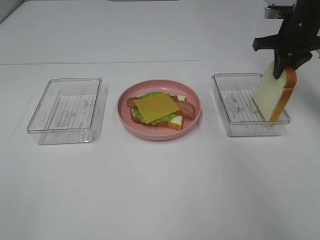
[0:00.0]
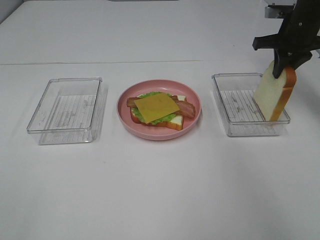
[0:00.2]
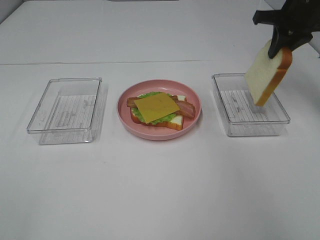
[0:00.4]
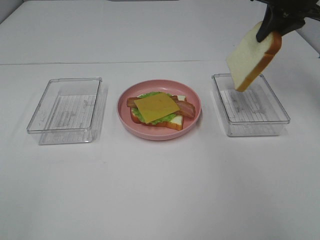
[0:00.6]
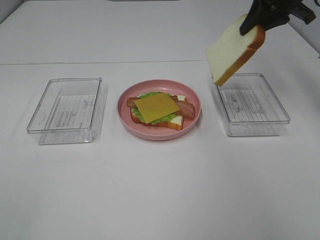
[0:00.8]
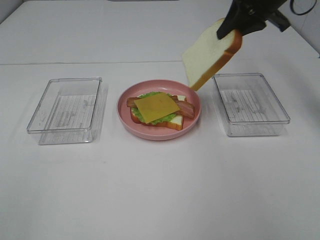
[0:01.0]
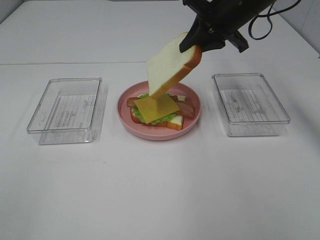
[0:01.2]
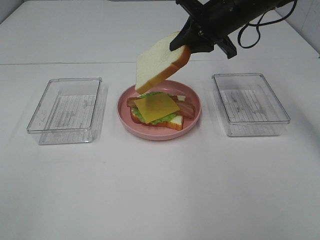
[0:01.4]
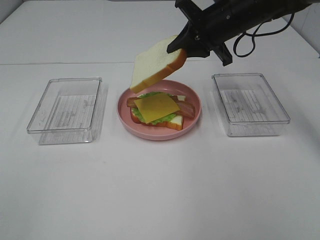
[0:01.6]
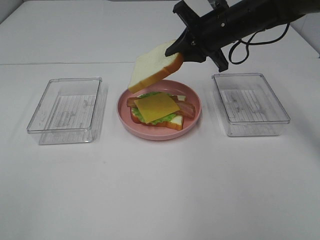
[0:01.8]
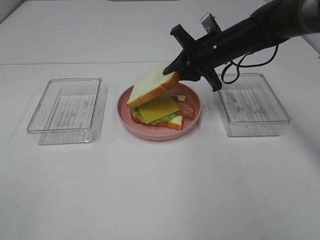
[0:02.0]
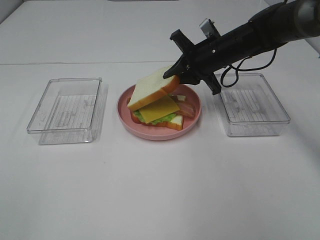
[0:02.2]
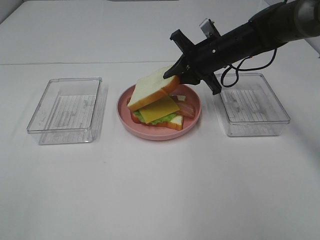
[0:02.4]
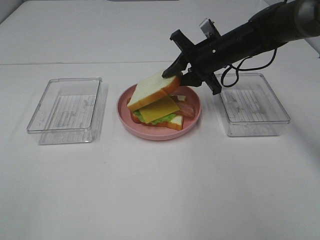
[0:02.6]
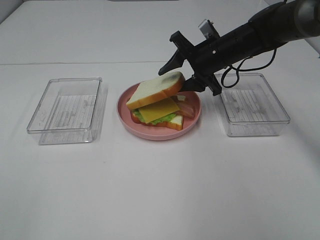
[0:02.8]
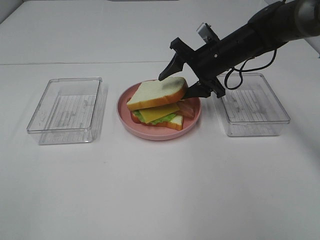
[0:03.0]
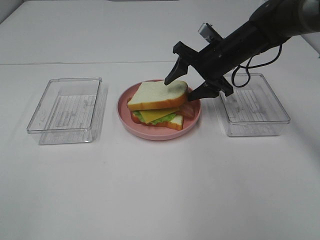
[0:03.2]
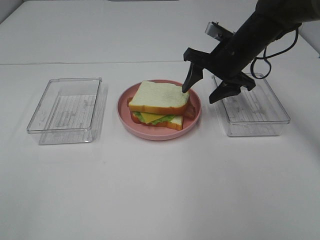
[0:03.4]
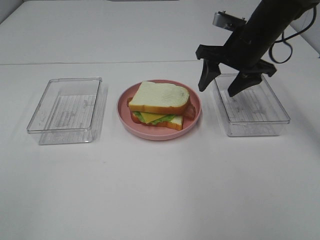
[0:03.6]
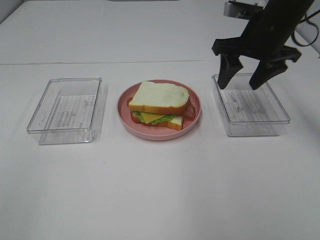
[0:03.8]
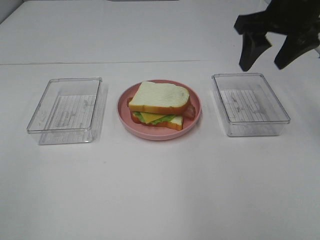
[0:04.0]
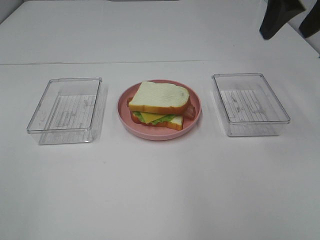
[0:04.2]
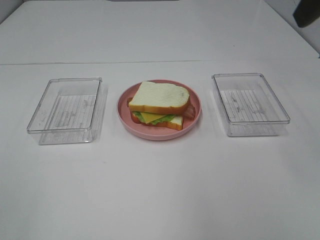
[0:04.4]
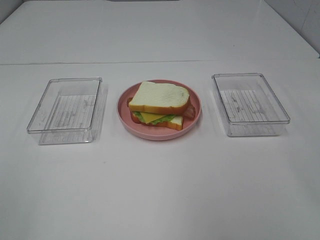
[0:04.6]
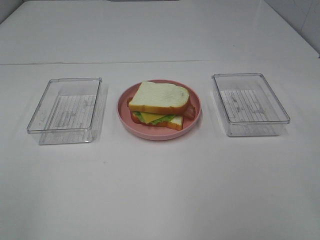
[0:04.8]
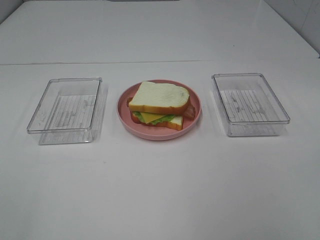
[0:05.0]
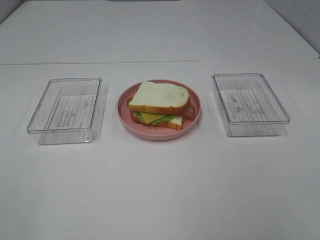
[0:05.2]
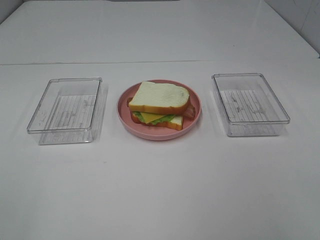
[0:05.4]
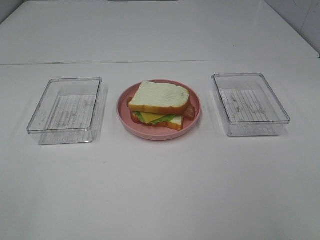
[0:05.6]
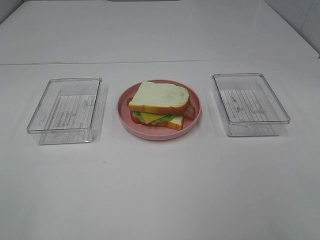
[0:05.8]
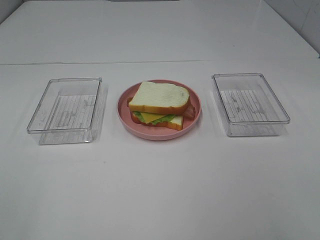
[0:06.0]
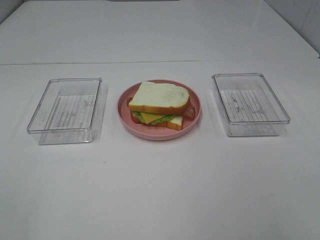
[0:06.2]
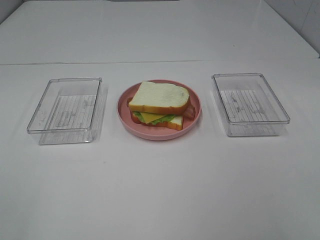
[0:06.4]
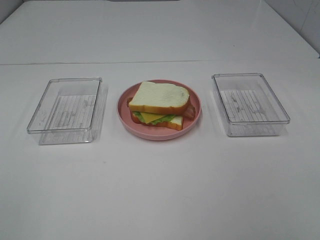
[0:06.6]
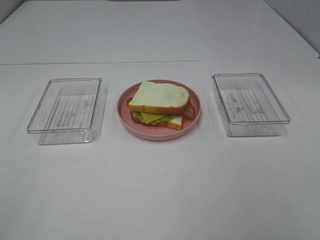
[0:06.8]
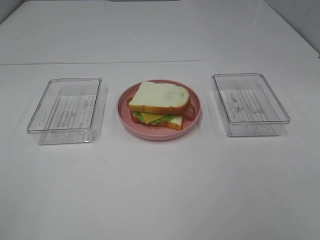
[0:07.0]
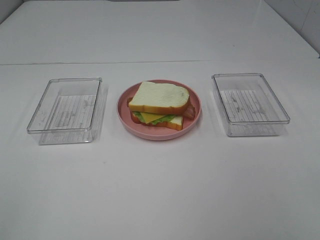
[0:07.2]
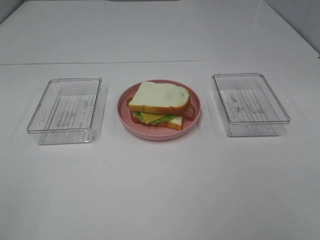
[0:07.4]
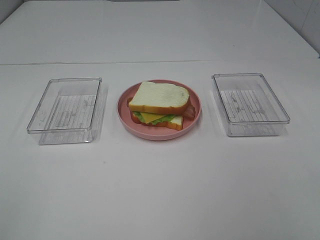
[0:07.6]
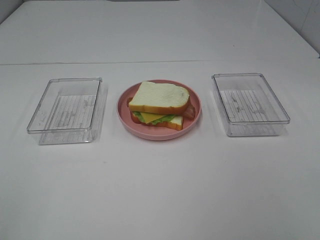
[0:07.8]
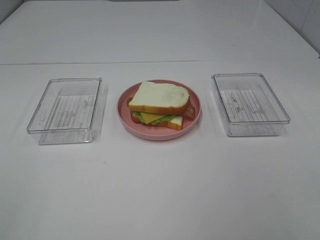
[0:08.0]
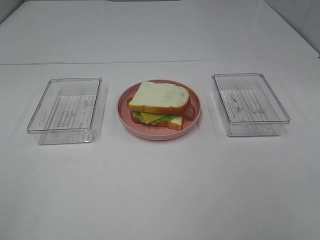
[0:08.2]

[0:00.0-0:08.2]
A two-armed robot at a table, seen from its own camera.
Task of the whole recording: Make sandwiches.
Step, 0:00.2 to 0:03.2: Right hand:place the bread slice on the cheese slice.
0:00.0 to 0:01.6: The right gripper heads to the left, covering approximately 15 cm.
0:01.6 to 0:03.2: The right gripper heads downward, covering about 5 cm, and opens.
0:03.2 to 0:05.0: The right gripper shifts roughly 35 cm backward.

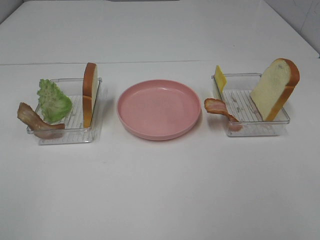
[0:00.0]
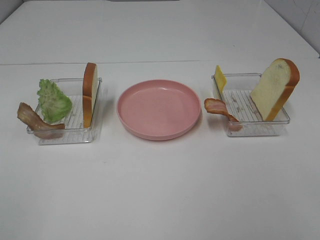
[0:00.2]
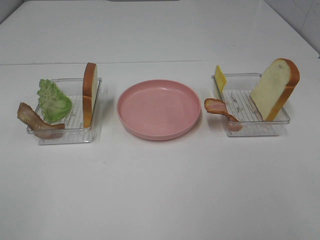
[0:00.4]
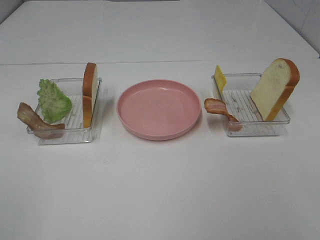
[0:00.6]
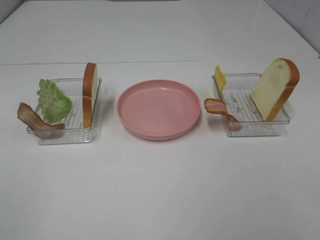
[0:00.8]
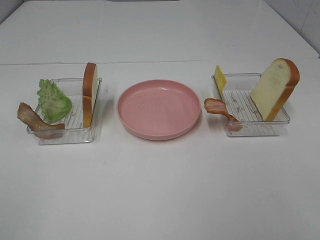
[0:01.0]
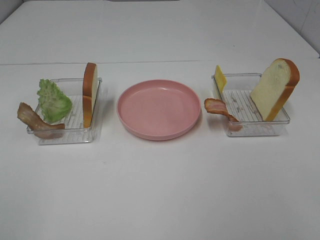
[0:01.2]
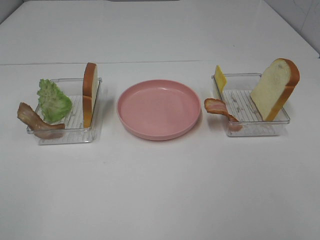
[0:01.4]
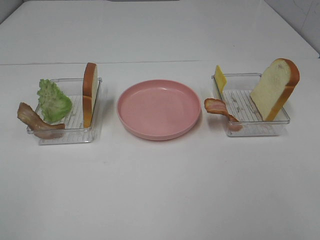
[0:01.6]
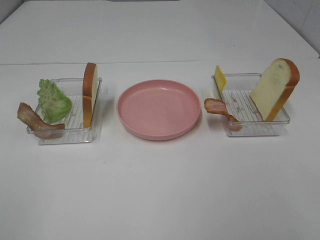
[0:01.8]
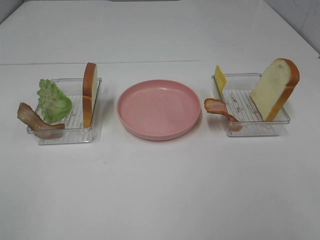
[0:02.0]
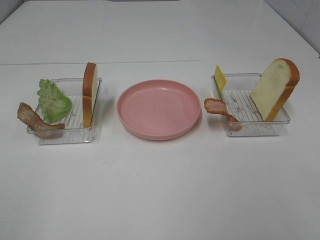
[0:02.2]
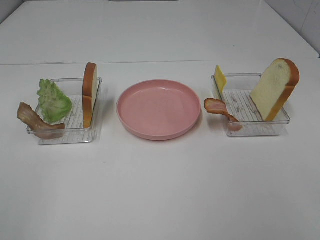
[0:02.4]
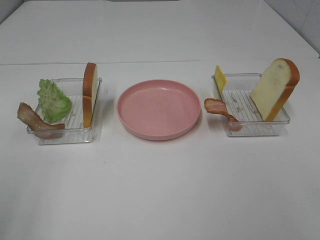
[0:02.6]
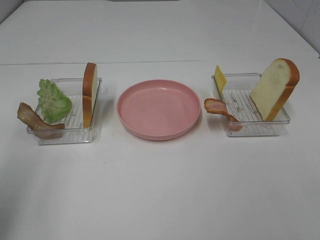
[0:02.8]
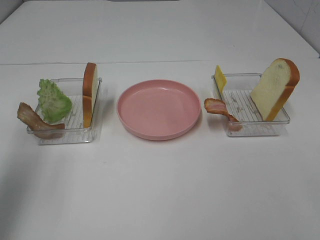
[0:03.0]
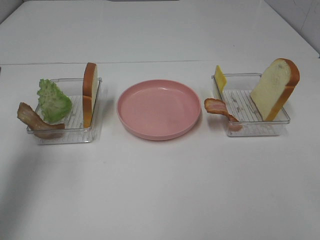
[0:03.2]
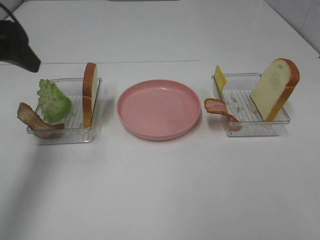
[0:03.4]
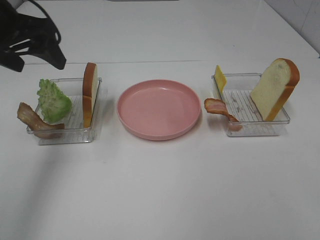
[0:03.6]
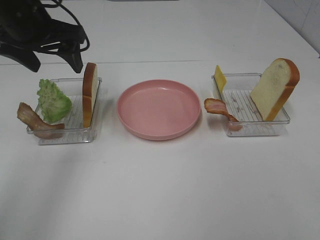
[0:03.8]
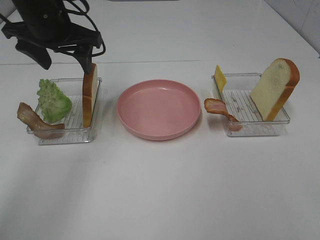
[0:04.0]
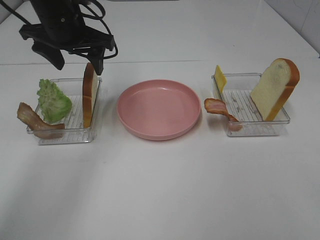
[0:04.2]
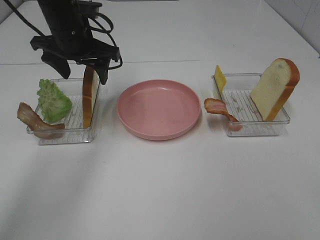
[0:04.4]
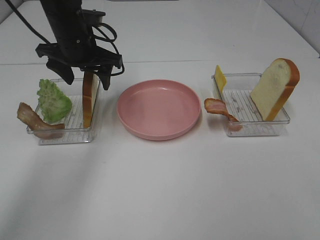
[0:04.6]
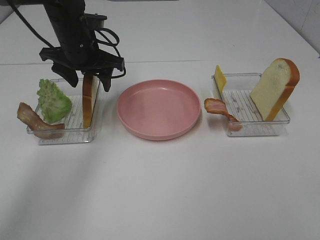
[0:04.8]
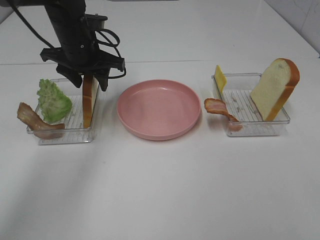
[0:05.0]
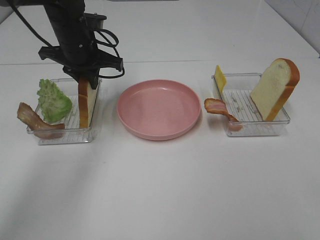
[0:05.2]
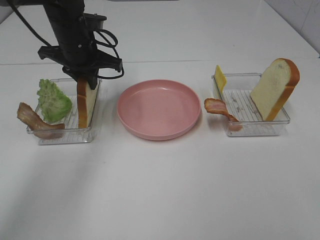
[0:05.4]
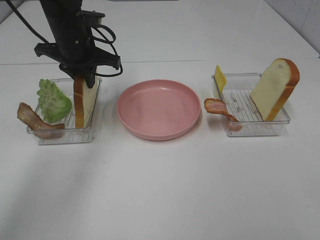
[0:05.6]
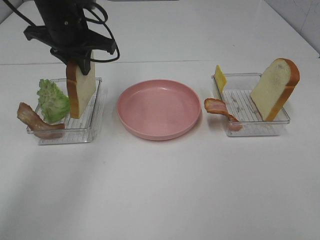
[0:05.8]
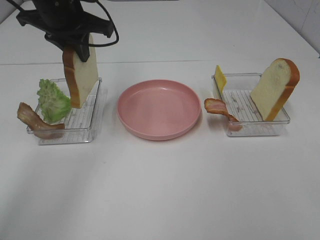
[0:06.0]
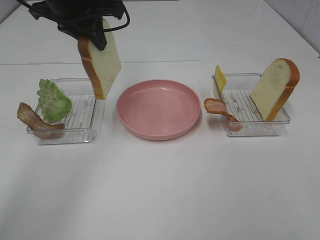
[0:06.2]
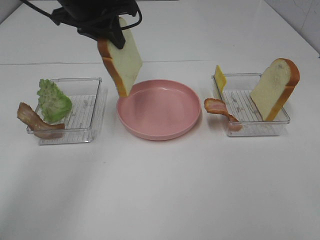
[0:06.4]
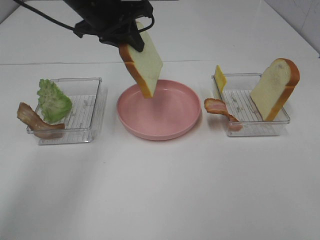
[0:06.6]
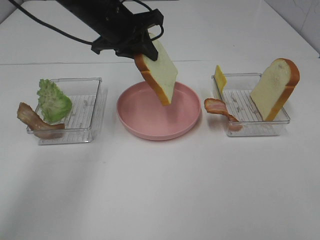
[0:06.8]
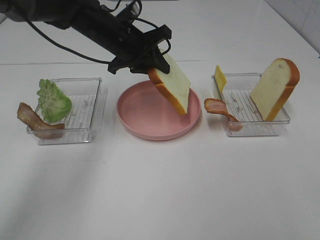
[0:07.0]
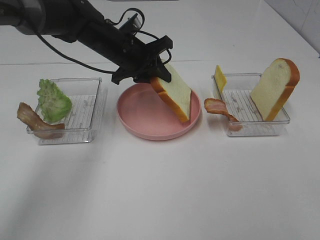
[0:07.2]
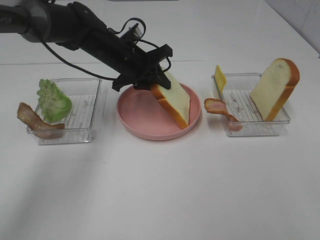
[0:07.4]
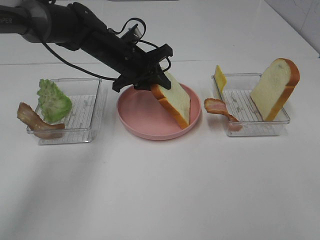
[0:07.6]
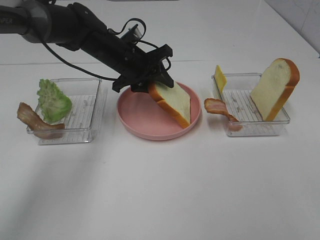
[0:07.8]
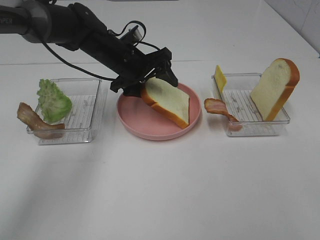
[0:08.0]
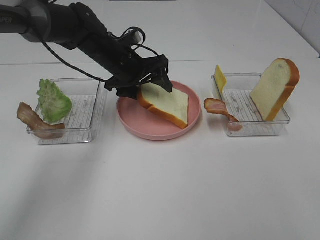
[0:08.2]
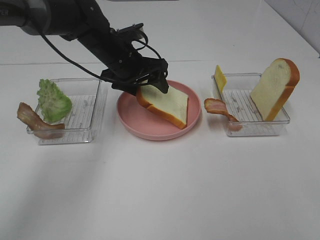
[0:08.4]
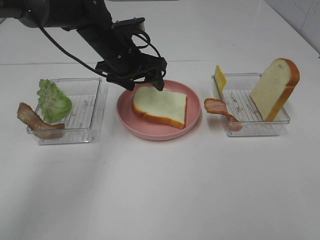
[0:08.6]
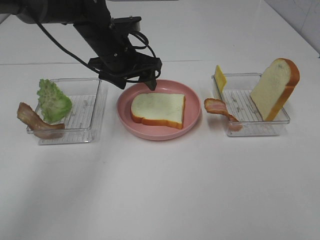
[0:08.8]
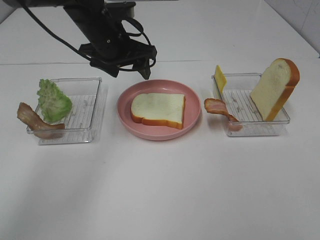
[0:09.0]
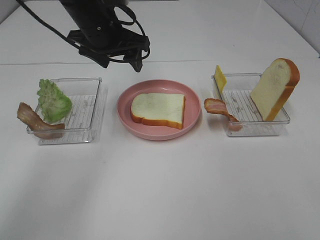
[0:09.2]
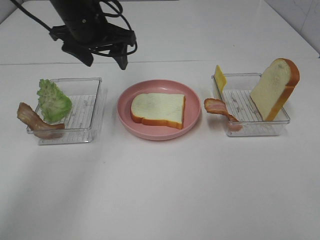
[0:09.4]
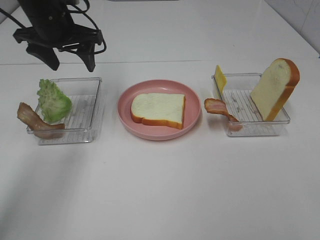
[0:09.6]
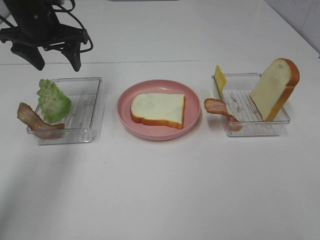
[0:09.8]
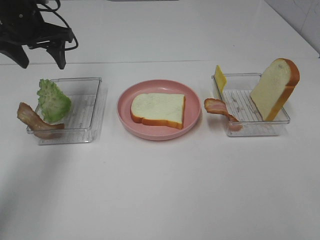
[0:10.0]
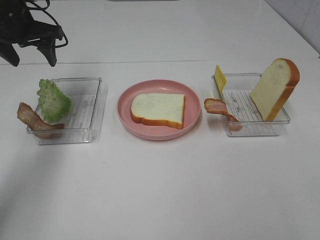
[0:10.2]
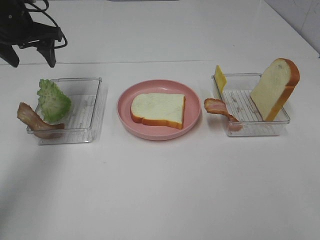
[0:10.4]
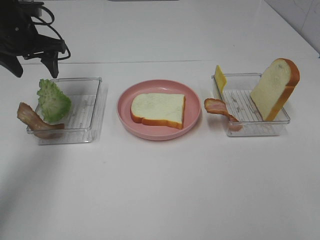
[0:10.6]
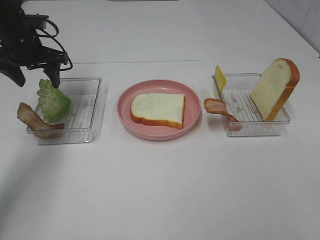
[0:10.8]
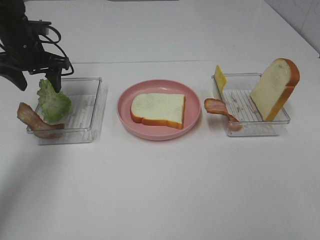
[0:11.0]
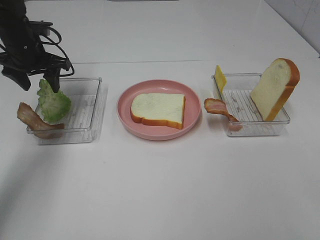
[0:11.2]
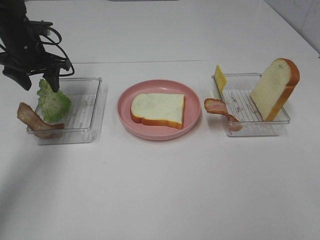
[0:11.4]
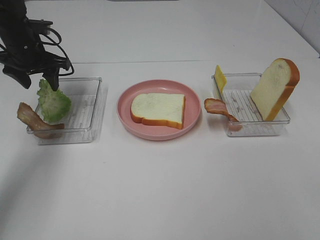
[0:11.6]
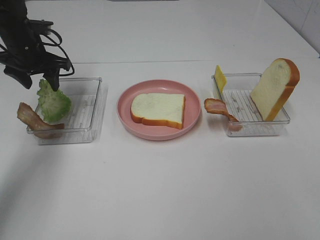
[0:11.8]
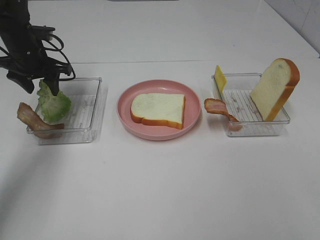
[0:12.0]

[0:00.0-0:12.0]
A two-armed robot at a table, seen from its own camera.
Task of the whole recording: Make sandwiches.
Step, 0:00.0 to 0:05.2: Left hand:grab the bread slice.
Step, 0:05.4 to 0:08.6: Left hand:place the bread slice on the plate.
0:00.0 to 0:01.6: The two grippers keep their place.
0:01.6 to 0:03.0: The left gripper goes roughly 20 cm forward.
0:03.0 to 0:04.4: The left gripper heads forward, to the right and downward, covering approximately 30 cm.
0:04.4 to 0:06.0: The left gripper travels upward by some 5 cm, and closes its fingers.
0:06.0 to 0:07.6: The left gripper is displaced downward and to the right by about 15 cm.
0:07.6 to 0:09.0: The left gripper shifts approximately 5 cm upward, and opens up.
0:09.0 to 0:10.4: The left gripper goes roughly 15 cm to the left.
0:10.4 to 0:12.0: The left gripper goes approximately 5 cm downward.

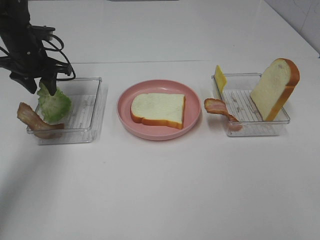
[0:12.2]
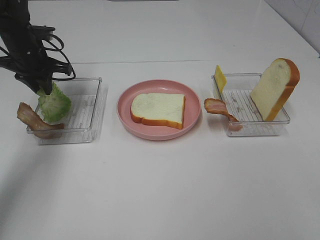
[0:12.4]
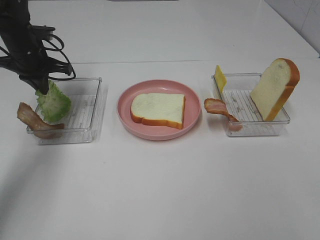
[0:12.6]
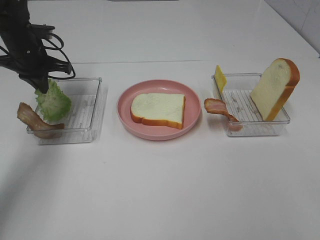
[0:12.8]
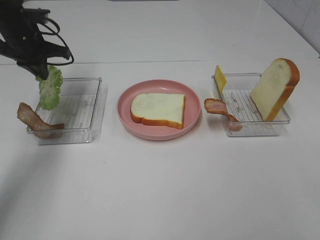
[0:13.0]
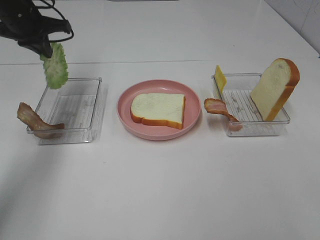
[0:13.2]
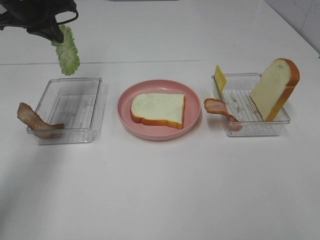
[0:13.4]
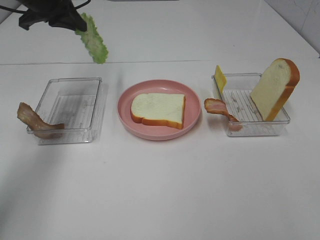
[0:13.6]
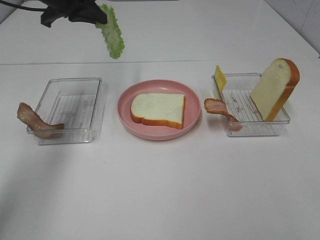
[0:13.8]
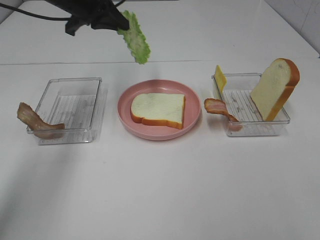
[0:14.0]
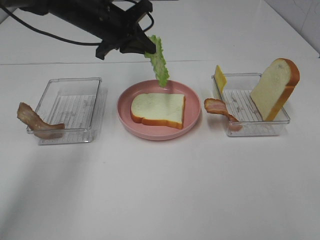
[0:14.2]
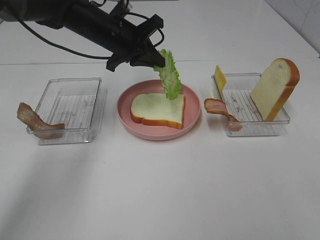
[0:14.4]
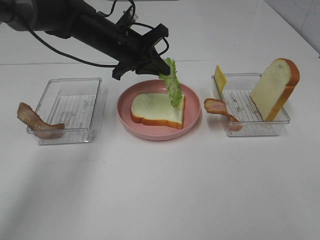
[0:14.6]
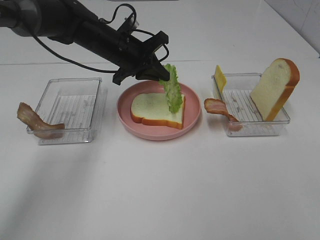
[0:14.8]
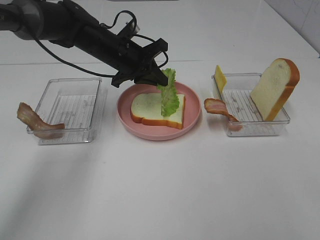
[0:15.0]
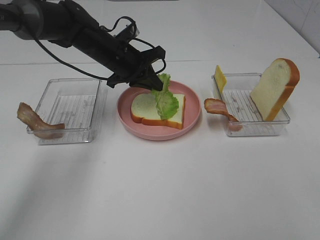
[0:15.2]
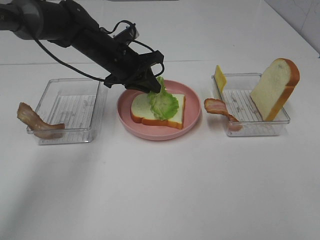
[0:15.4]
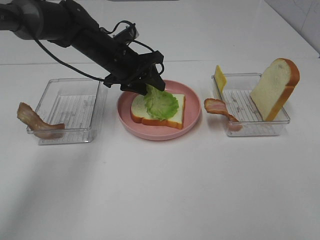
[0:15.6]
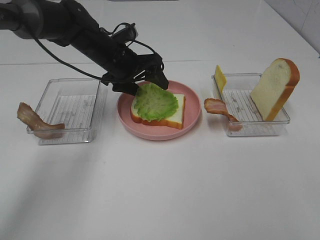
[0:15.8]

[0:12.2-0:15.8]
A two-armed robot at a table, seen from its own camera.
Task of the whole recording: Make sandwiches.
0:12.2 to 0:14.0: The left gripper goes some 15 cm to the right and upward, and closes its fingers.
0:14.0 to 0:15.8: The left gripper shifts about 10 cm downward and to the right, and opens.
